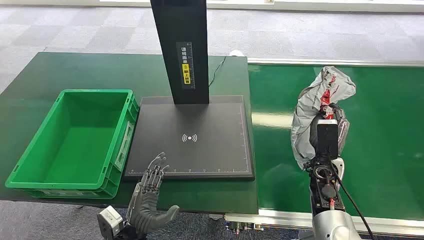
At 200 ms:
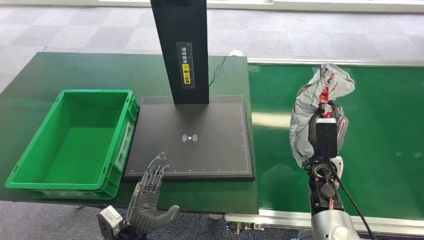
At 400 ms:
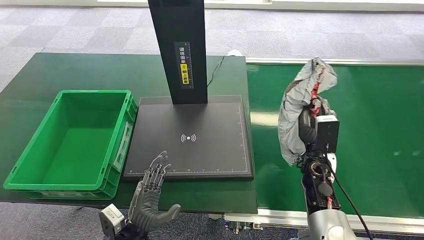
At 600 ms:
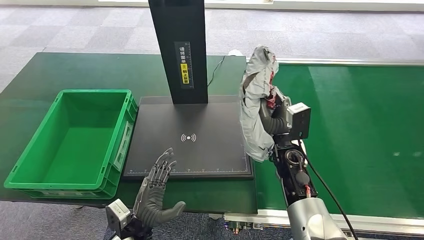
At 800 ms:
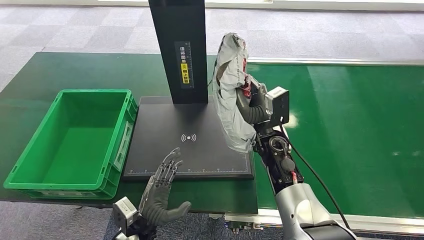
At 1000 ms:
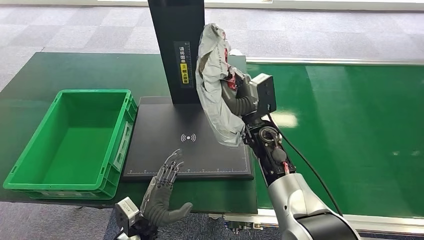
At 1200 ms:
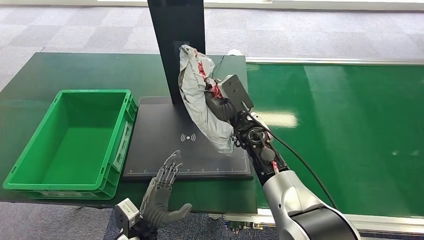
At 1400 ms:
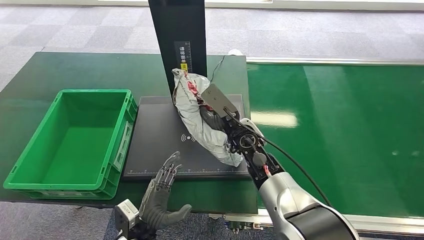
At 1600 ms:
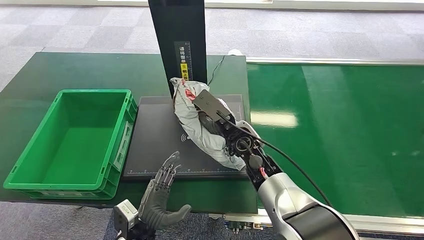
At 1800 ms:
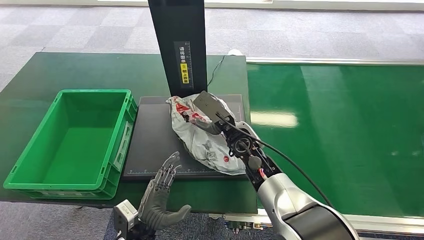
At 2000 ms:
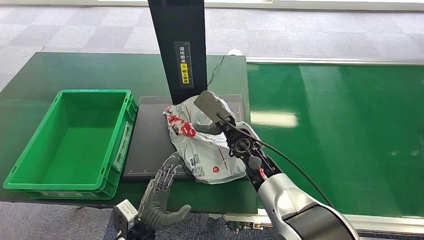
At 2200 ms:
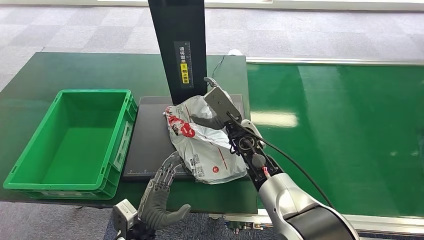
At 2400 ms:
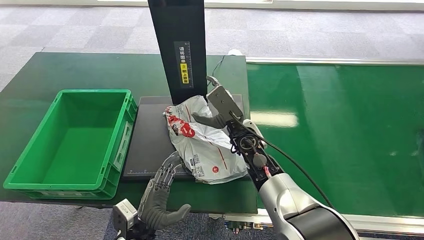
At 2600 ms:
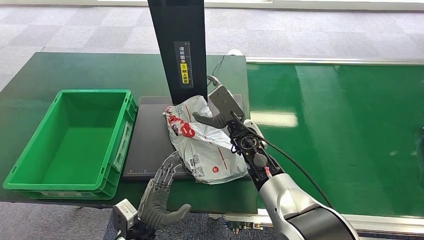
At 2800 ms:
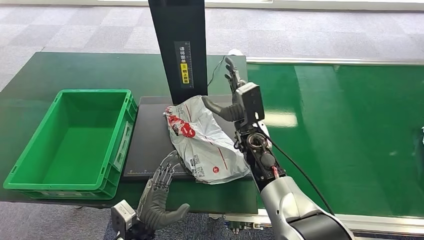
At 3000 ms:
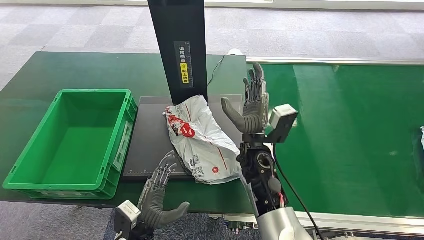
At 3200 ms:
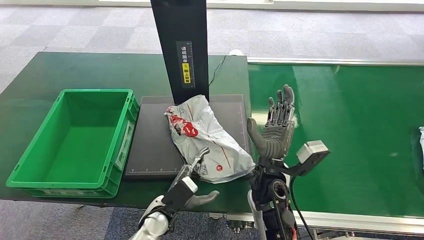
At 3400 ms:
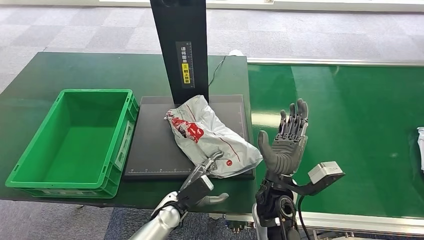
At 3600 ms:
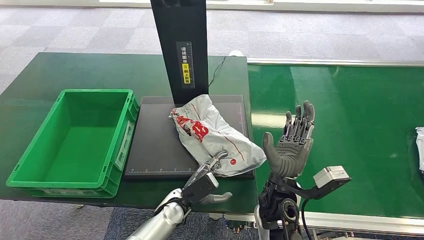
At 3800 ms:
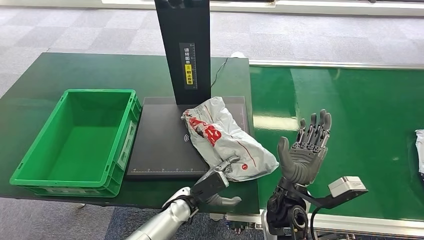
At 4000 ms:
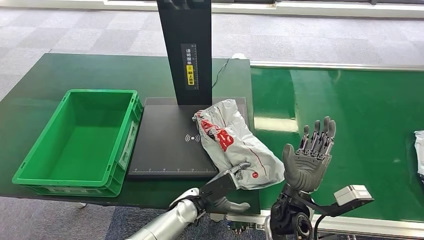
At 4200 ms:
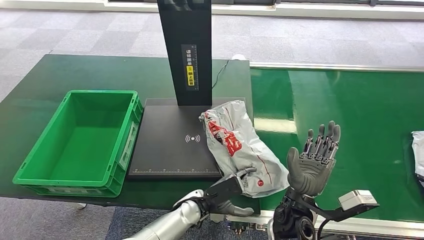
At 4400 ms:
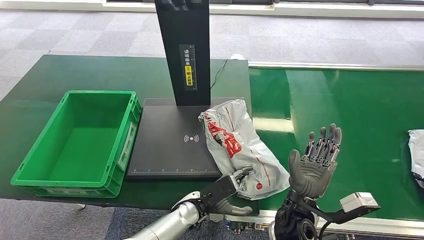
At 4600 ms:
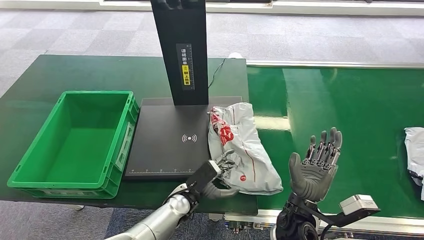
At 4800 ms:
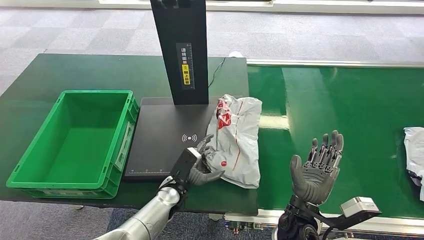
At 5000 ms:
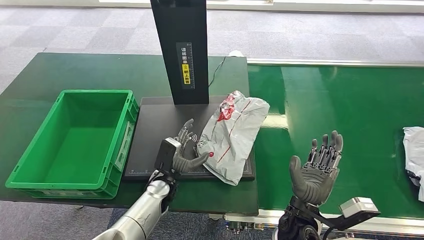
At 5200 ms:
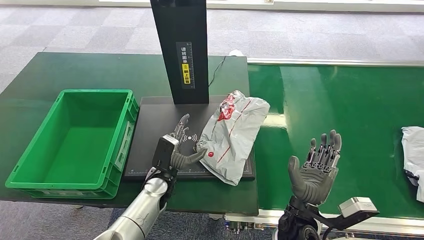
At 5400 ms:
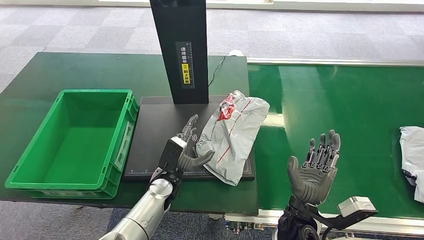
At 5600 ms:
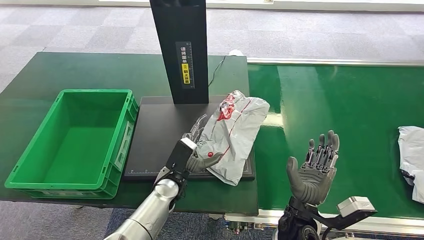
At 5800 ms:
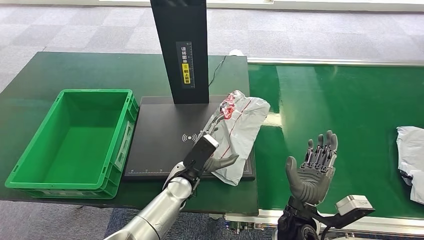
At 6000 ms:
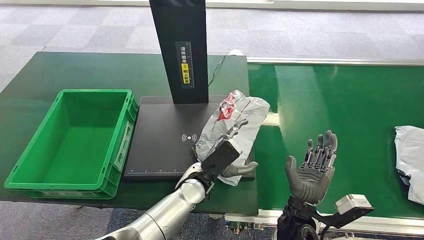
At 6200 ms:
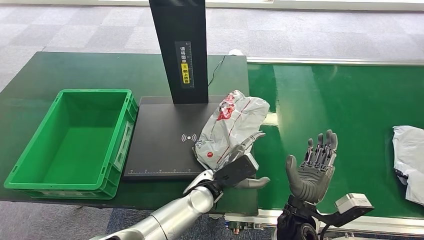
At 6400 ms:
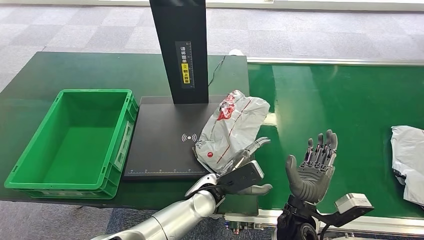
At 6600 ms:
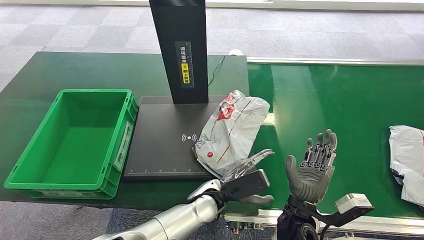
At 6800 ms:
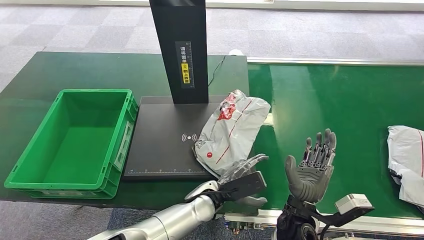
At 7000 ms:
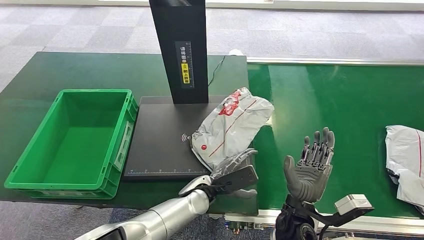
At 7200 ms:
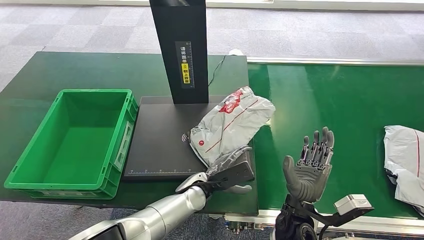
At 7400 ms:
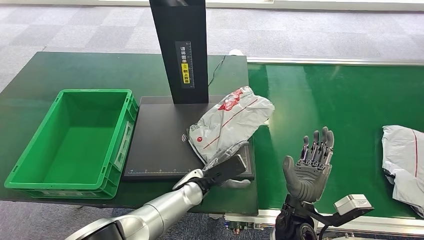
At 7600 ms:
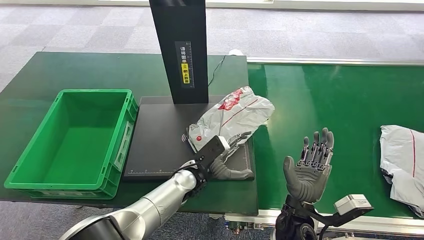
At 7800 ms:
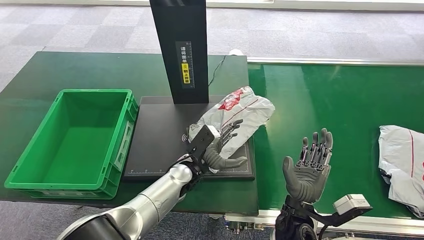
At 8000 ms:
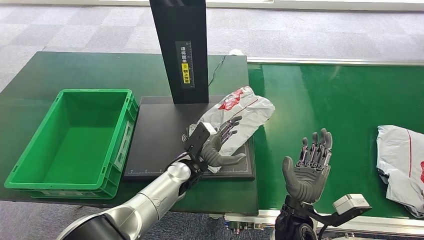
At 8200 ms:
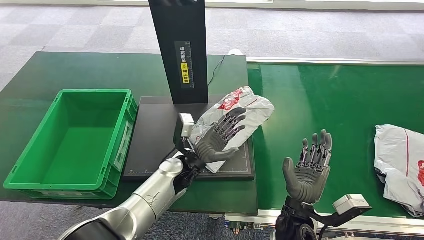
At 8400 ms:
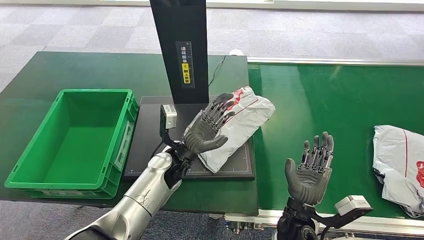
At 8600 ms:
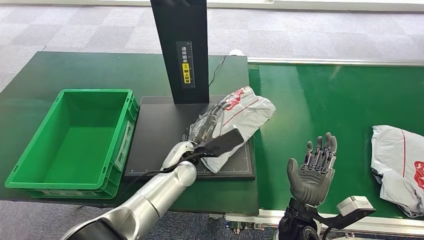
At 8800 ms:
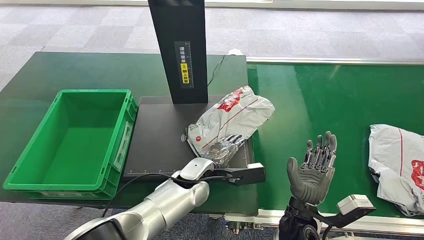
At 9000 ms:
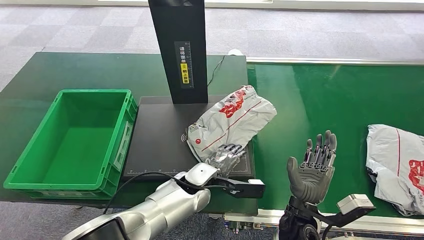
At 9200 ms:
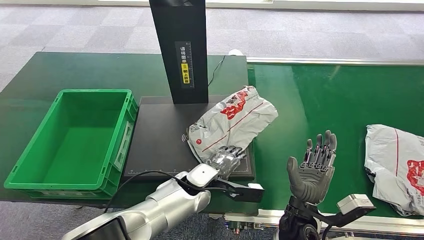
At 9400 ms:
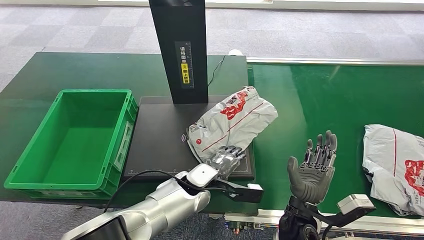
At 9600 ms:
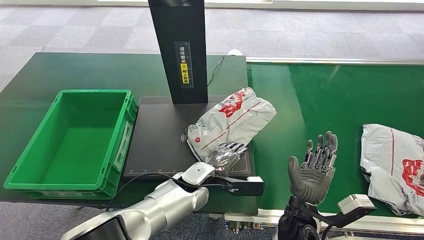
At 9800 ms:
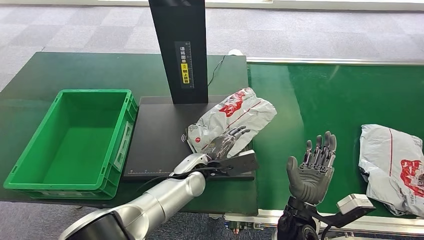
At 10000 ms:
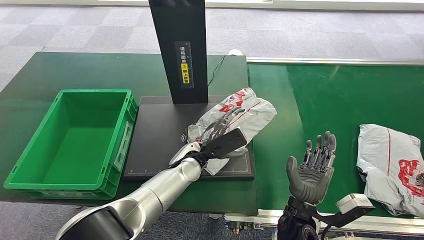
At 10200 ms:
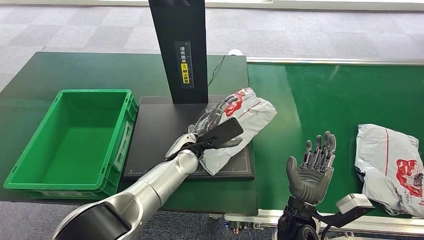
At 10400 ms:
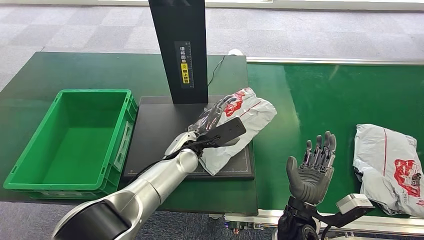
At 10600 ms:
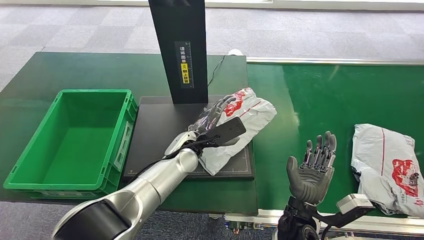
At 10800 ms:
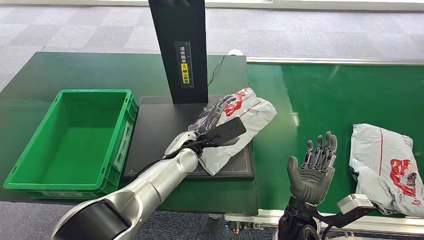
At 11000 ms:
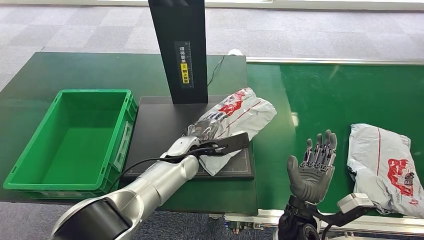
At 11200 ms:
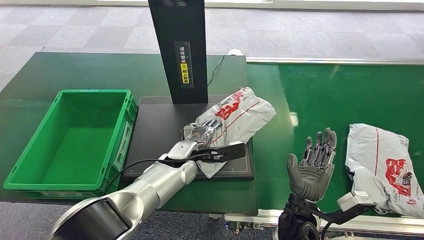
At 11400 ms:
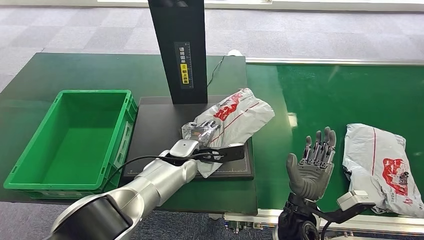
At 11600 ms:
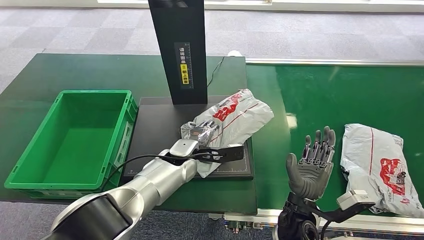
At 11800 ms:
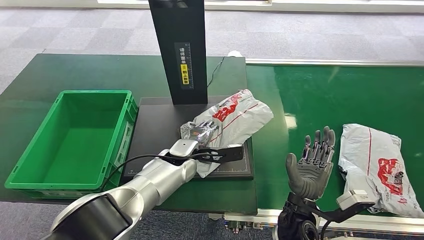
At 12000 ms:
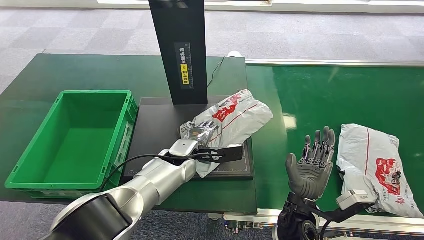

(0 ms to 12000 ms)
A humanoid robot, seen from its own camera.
9000 ms - 10400 ms: The left hand goes roughly 10 cm upward and forward.

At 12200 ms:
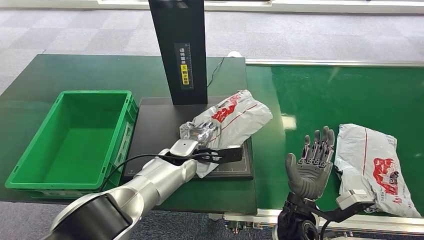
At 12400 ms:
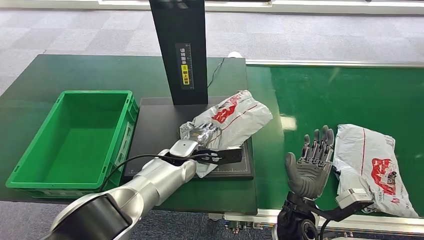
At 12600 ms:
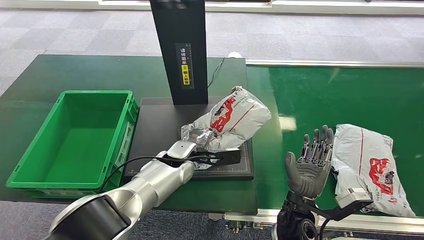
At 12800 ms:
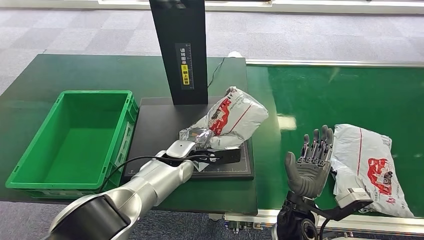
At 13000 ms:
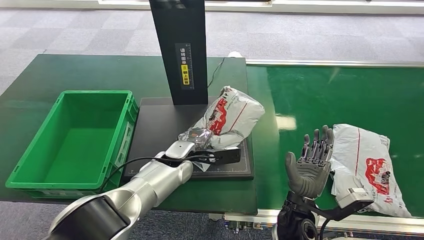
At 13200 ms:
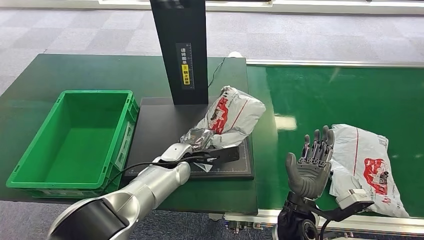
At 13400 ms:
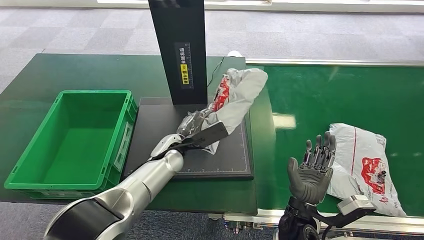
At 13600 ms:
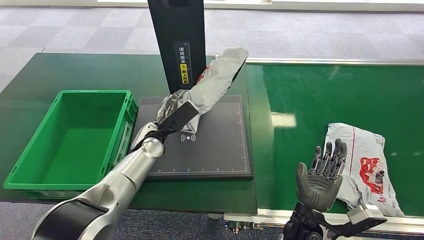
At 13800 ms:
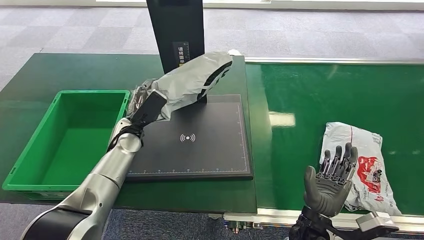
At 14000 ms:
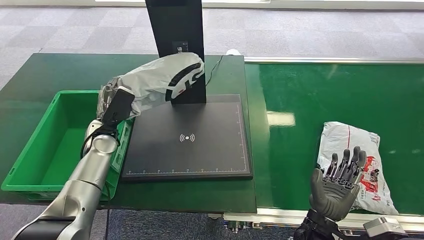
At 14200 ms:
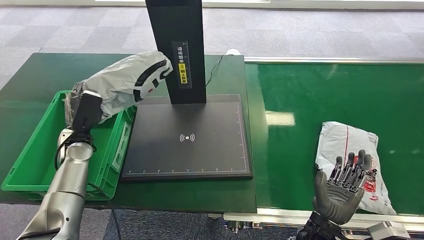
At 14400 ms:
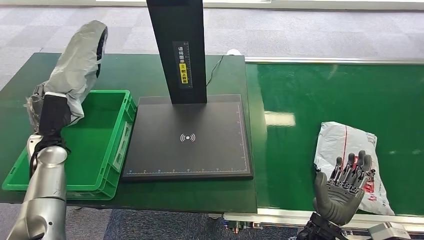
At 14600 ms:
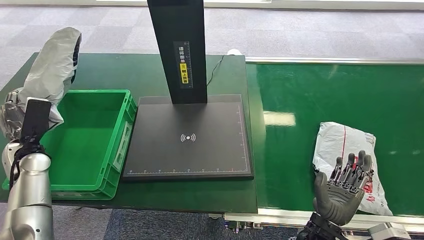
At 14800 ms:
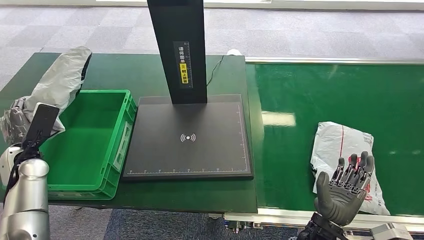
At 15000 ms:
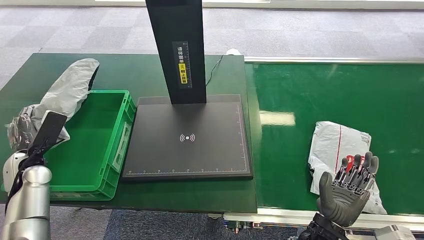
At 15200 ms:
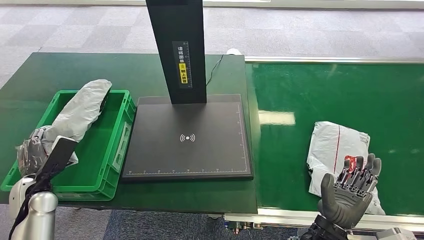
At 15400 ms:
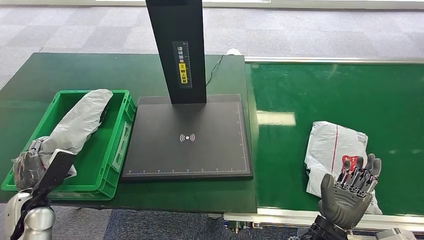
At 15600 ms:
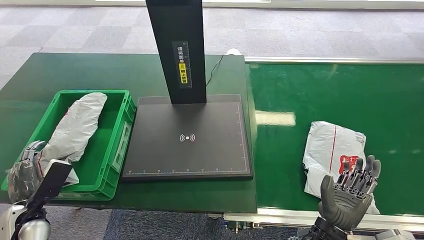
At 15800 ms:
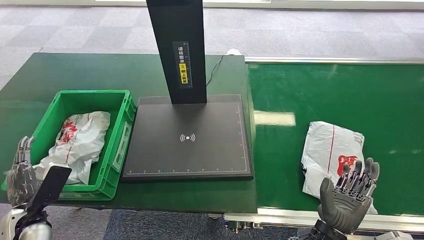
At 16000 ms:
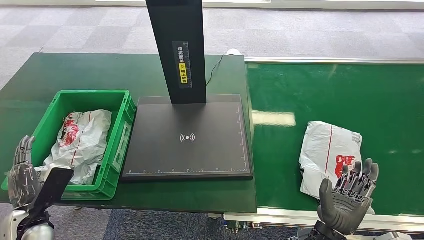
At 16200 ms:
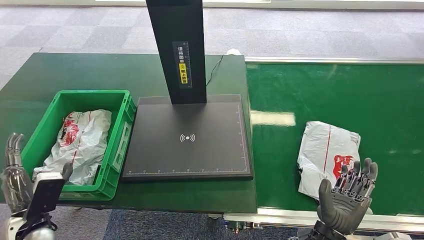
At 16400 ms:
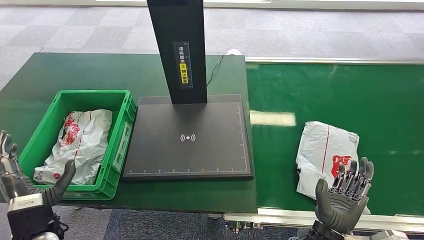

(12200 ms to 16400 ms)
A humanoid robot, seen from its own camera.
15000 ms - 16400 ms: The left hand moves backward and to the right, some 20 cm.
